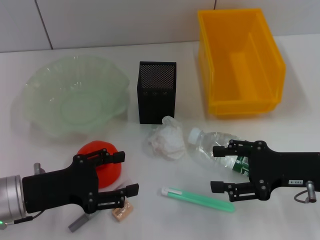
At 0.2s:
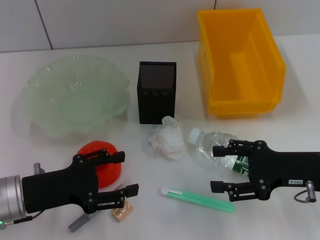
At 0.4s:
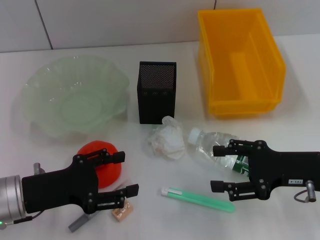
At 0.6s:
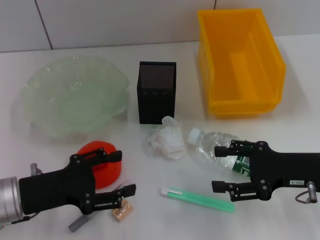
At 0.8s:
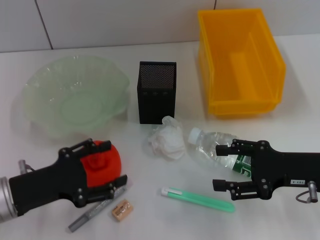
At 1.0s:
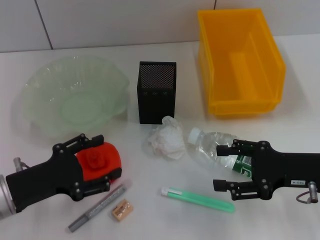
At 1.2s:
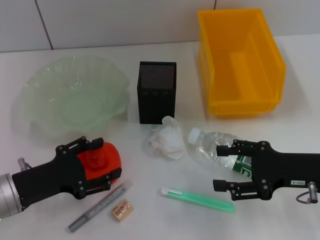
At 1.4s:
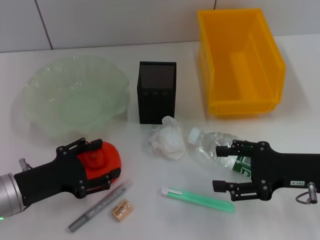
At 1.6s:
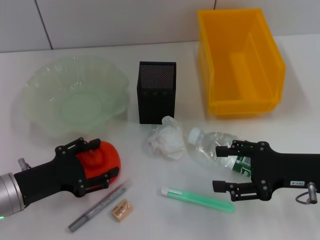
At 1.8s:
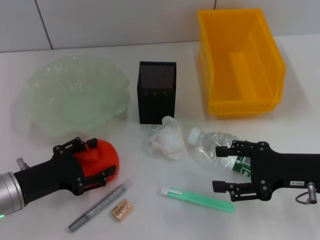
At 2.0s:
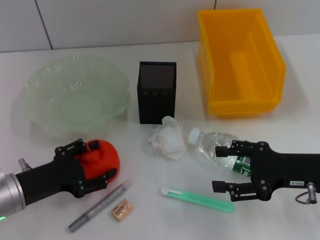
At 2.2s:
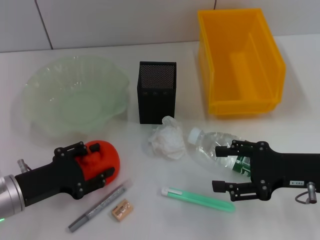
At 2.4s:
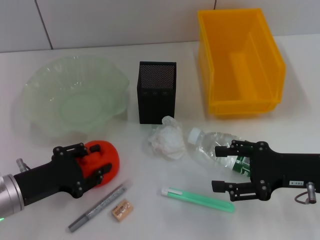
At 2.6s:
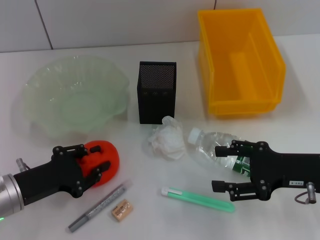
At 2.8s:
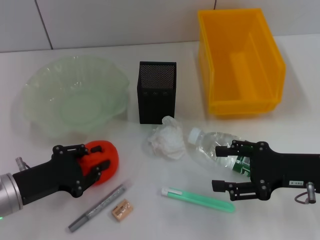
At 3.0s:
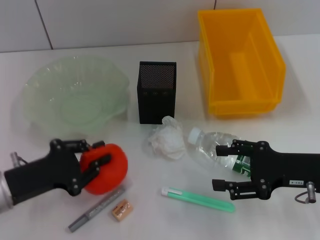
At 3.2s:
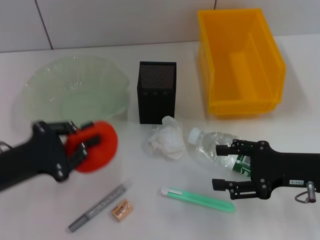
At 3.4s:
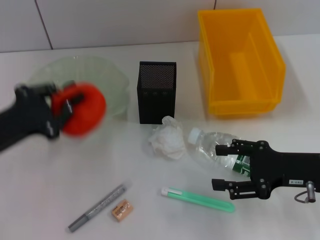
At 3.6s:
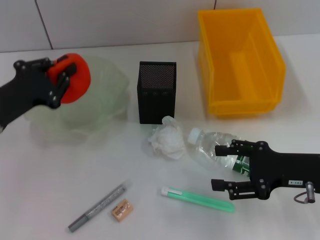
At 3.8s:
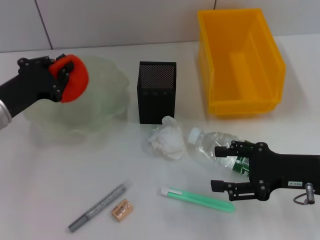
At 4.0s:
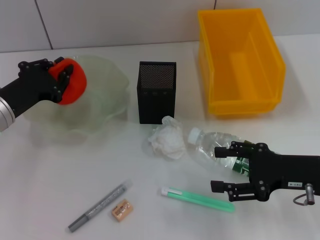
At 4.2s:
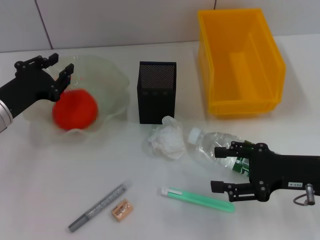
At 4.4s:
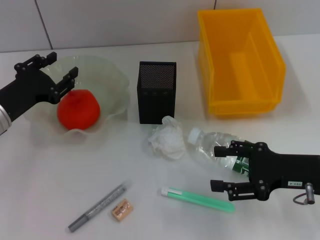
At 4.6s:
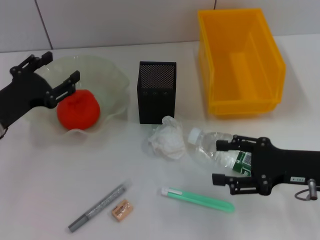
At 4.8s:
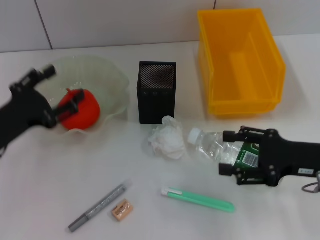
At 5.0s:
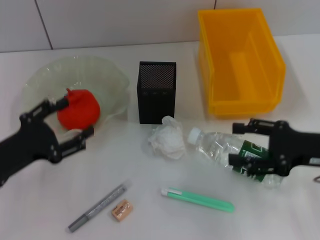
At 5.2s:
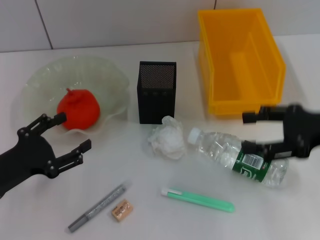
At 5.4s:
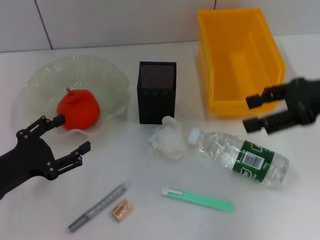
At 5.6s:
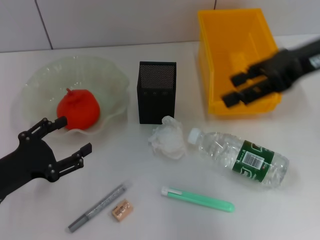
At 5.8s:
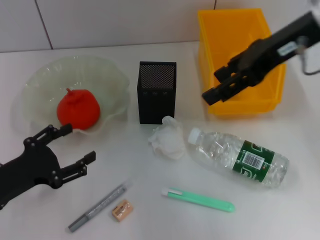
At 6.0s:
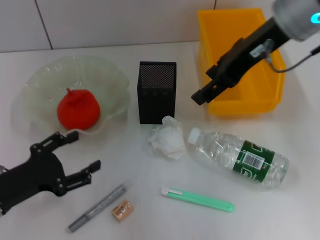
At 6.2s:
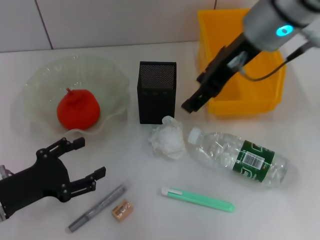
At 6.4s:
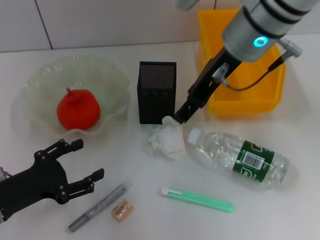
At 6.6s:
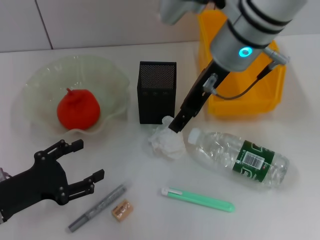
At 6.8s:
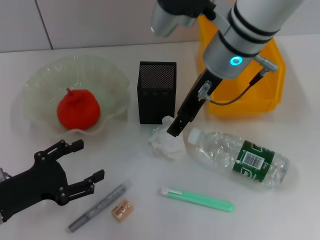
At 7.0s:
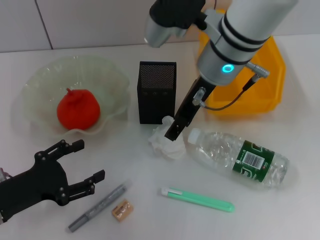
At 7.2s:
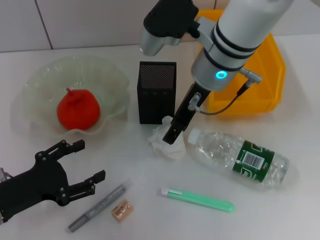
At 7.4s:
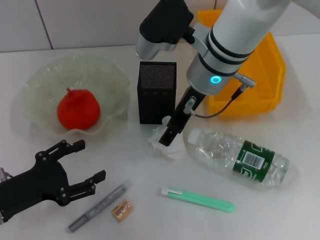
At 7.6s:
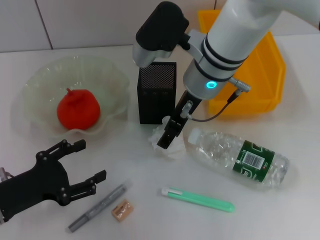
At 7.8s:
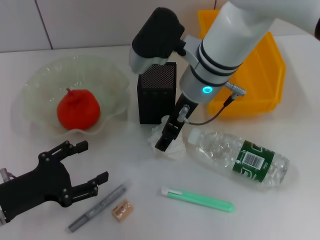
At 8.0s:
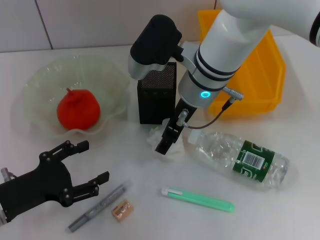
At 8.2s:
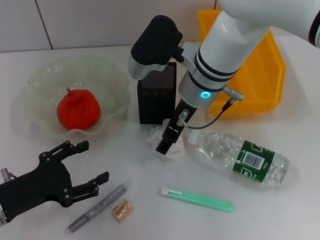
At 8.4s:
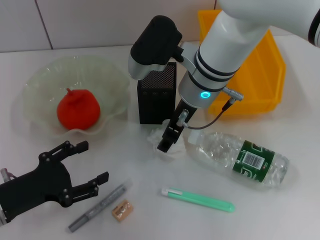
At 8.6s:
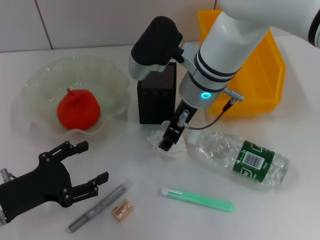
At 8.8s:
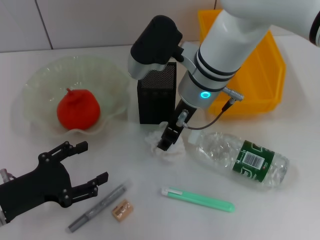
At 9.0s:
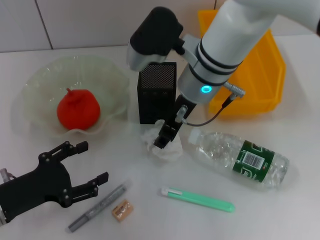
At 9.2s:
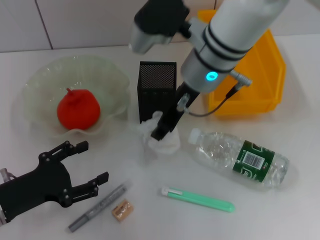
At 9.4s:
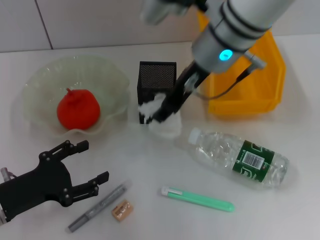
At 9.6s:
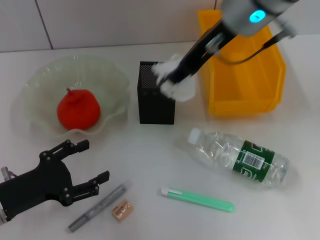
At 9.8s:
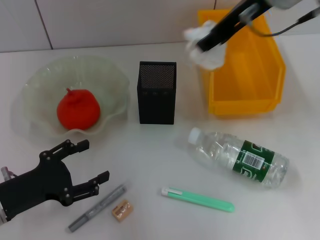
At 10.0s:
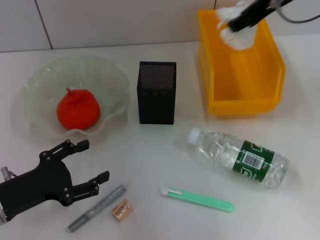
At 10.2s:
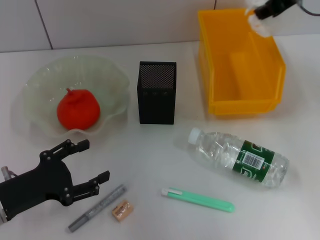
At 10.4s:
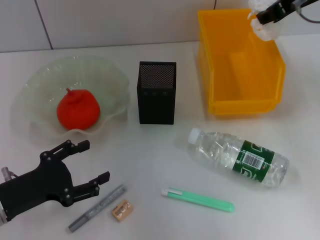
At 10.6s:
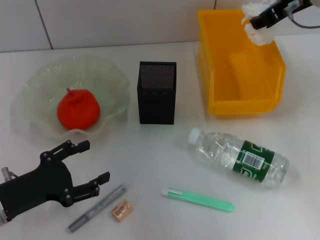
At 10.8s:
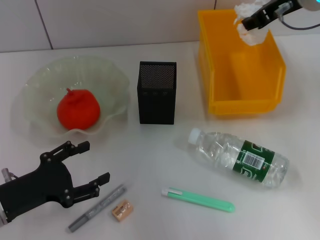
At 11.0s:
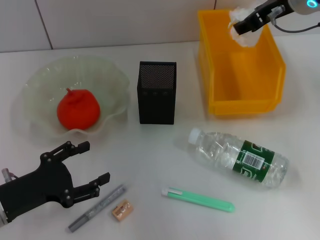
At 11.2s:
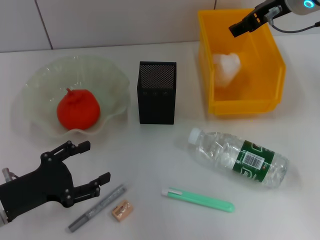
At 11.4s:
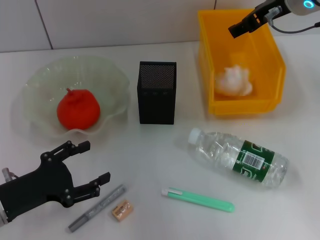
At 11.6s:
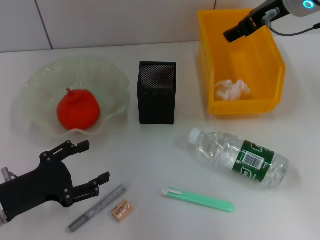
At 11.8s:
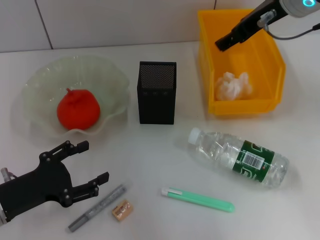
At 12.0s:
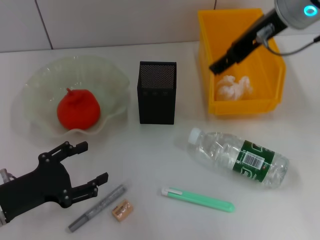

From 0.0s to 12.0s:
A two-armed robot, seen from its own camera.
Step, from 0.0s to 2.6s: Grab the orange with the left hand.
Step, from 2.8s to 4.2s: Place the orange into the fruit bowl with the left hand.
Step, from 4.4s to 8.6s: Grab the paper ball with the right hand.
Step, from 8.8s to 11.2s: Place the paper ball into the trash can with the right hand.
From 0.0s to 1.6s: There are only small adjustments of the grippers.
From 1.6s to 3.0s: The left gripper closes.
From 3.0s to 4.4s: The left gripper goes approximately 10 cm forward.
From 4.4s to 6.0s: The left gripper shifts some 10 cm backward, and opens up; the right gripper heads upward, forward and to the left, covering some 25 cm.
From 6.0s to 7.6s: The right gripper moves downward and to the left, roughly 15 cm.
From 7.6s to 9.0s: The right gripper closes its fingers.
From 9.0s to 10.4s: The right gripper heads to the right and upward, covering roughly 20 cm.
From 10.4s to 12.0s: The right gripper heads to the left, covering about 5 cm, and opens up.

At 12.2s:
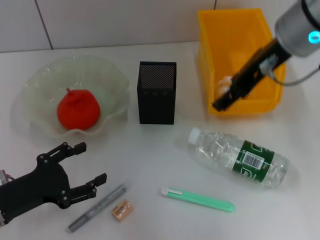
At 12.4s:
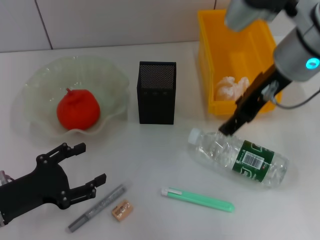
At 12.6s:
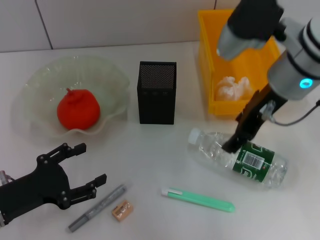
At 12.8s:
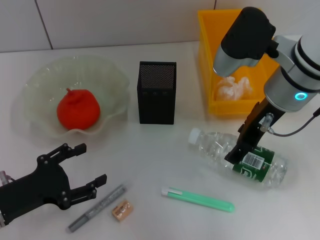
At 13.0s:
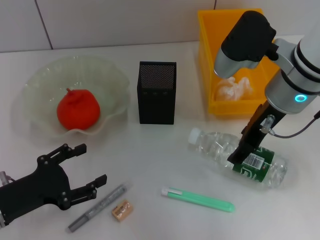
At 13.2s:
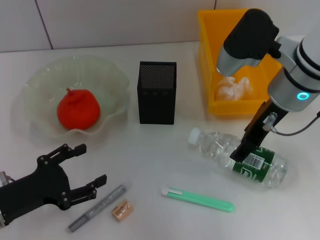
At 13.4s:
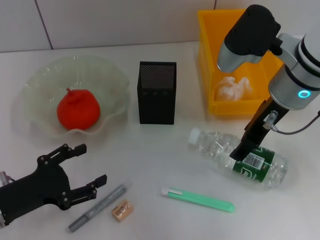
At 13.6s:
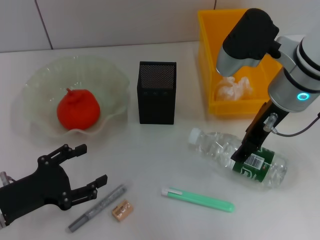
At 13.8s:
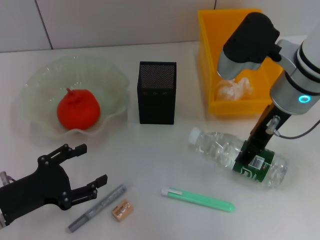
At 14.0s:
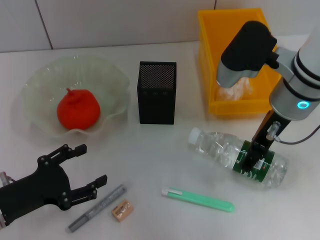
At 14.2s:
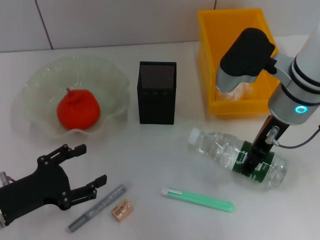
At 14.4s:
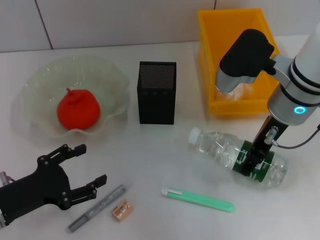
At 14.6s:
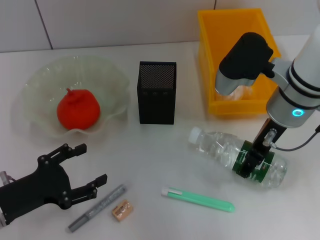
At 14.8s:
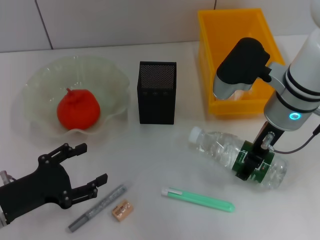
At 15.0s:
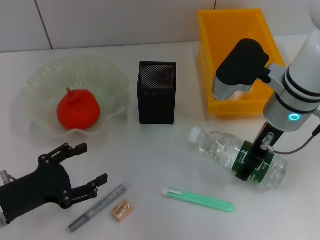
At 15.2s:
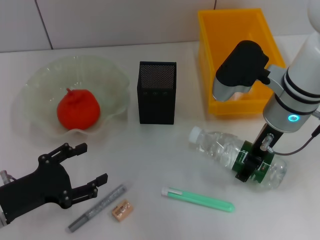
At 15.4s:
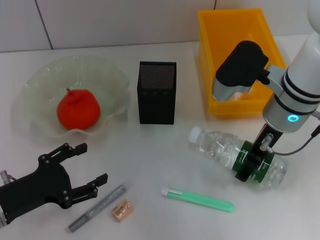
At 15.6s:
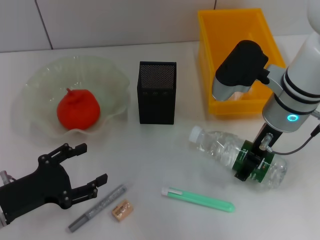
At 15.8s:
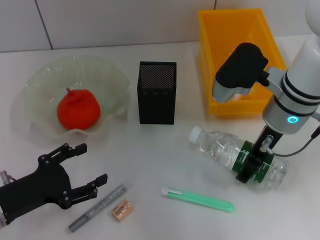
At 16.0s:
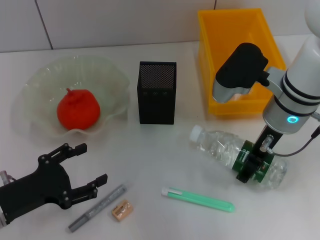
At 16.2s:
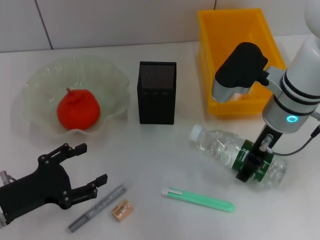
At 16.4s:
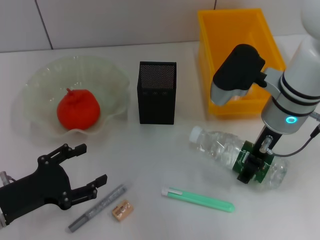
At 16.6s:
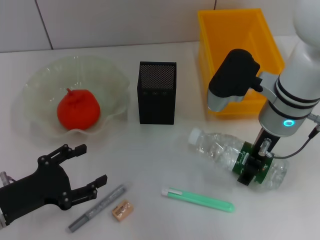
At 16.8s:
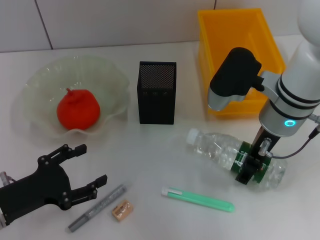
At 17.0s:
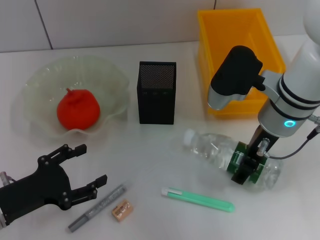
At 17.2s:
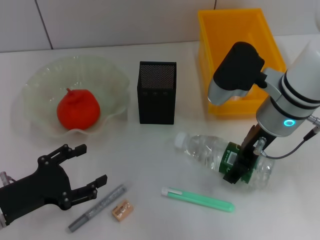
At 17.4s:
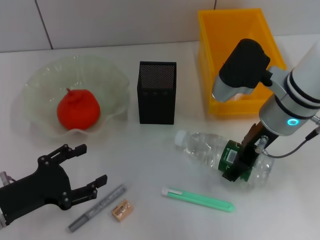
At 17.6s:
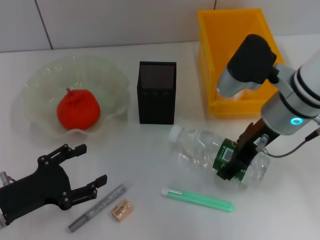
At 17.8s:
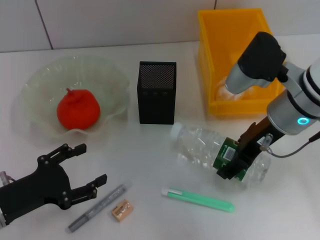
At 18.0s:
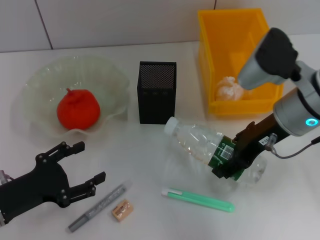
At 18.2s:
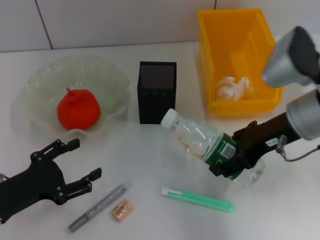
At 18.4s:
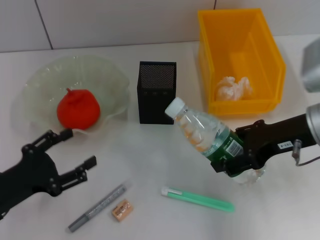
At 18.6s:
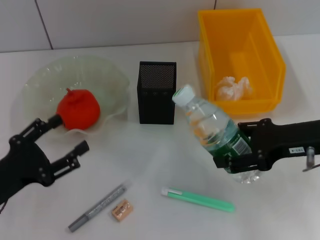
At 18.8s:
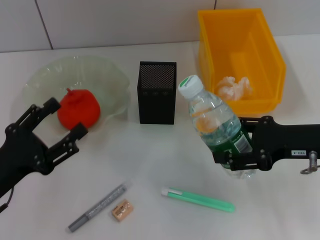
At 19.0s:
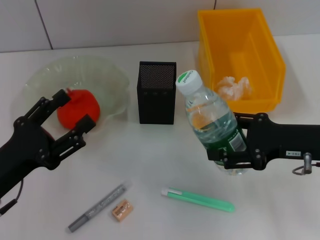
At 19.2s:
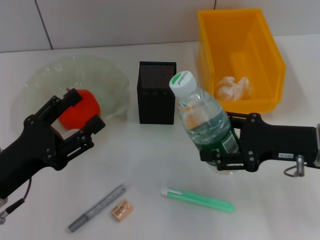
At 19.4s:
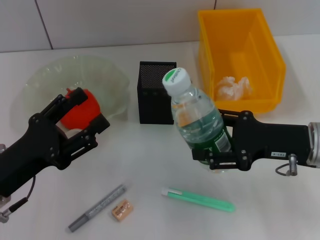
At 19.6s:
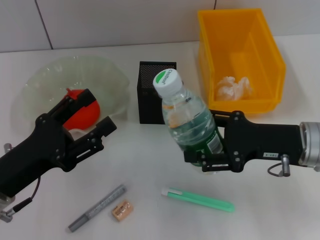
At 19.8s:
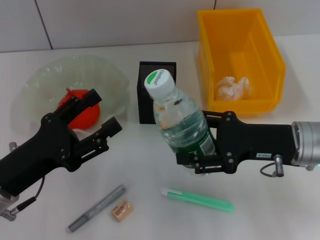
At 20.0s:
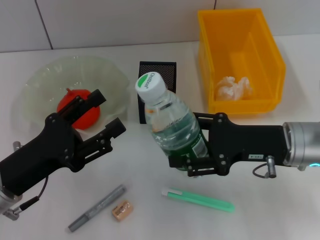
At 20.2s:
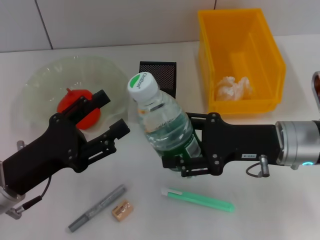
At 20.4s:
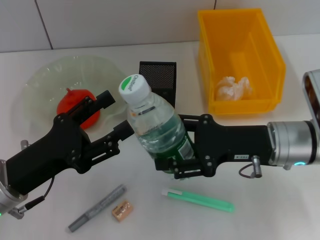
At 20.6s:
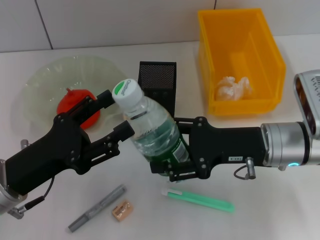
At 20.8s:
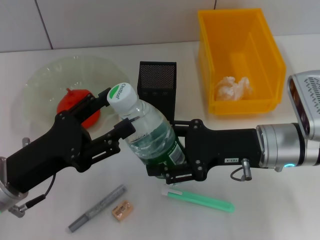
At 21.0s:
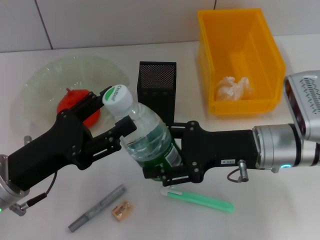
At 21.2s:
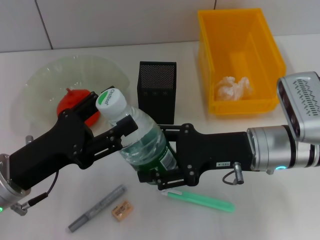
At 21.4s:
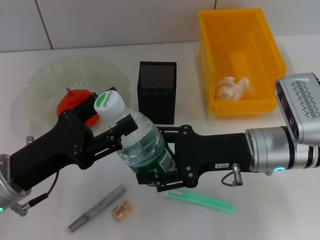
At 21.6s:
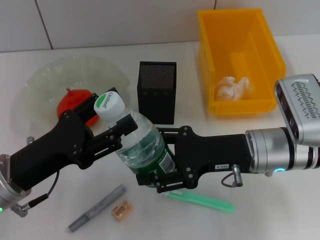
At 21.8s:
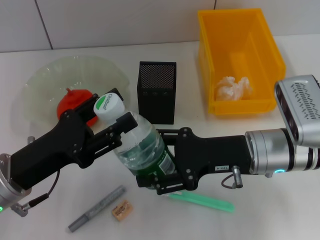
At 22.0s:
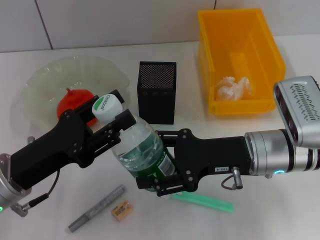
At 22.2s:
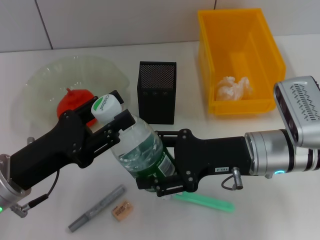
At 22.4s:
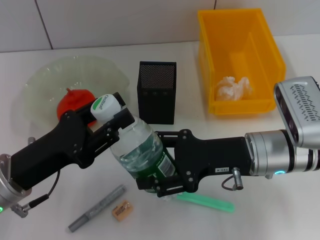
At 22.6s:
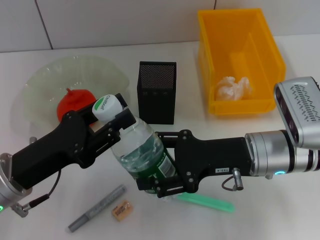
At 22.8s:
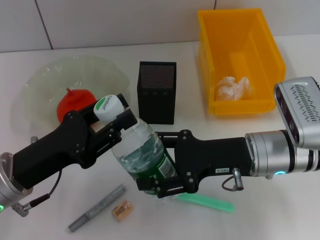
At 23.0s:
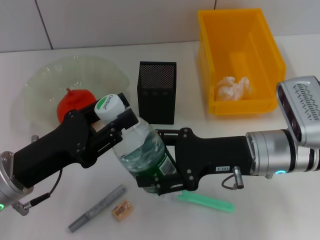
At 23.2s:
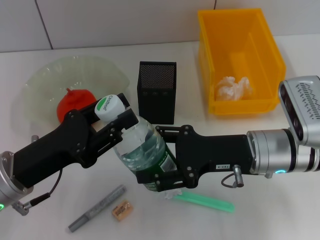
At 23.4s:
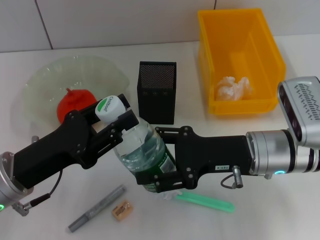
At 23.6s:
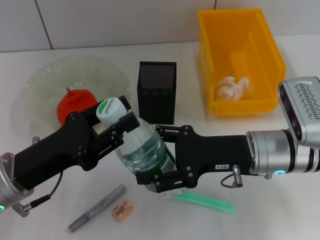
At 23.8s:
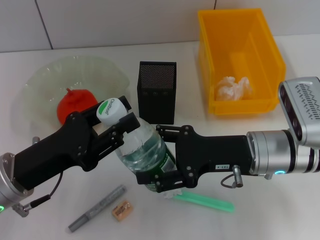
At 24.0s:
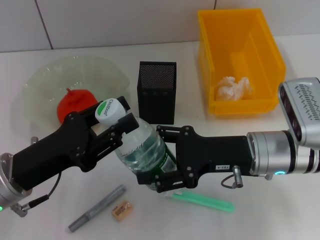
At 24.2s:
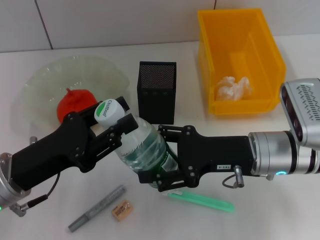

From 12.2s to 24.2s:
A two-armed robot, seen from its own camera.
Step, from 12.2s to 16.2s: Grab the water bottle with the right hand.
From 12.2s to 13.8s: The right gripper shifts some 5 cm downward.
From 13.8s to 15.2s: The grippers make only small movements.
From 15.2s to 16.6s: Both grippers stay put.
From 16.6s to 18.2s: The right gripper shifts approximately 5 cm to the right.
From 18.2s to 19.8s: The left gripper moves about 5 cm. Meanwhile the right gripper shifts about 5 cm downward.
From 19.8s to 21.2s: The right gripper shifts roughly 5 cm to the left.
From 21.2s to 22.6s: The left gripper closes.
From 22.6s to 24.2s: Both grippers stay about where they are.
